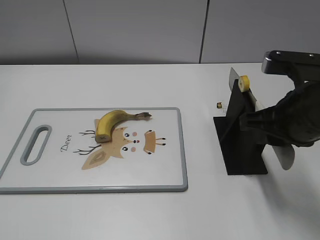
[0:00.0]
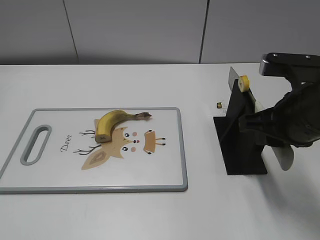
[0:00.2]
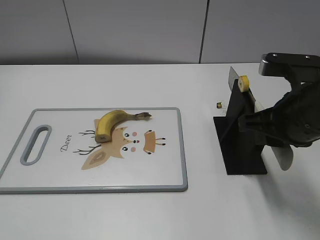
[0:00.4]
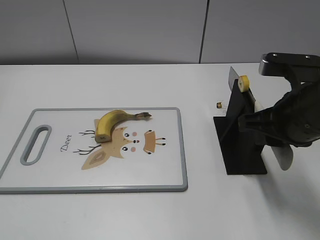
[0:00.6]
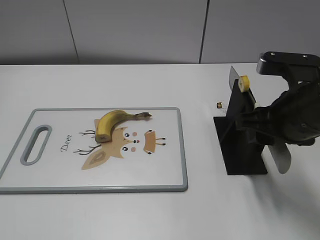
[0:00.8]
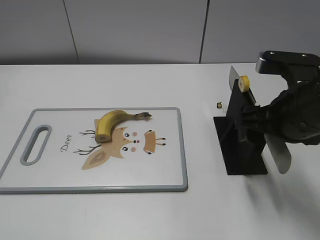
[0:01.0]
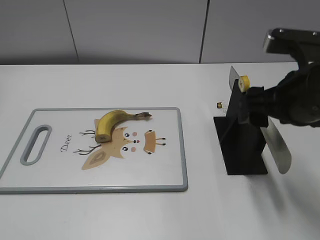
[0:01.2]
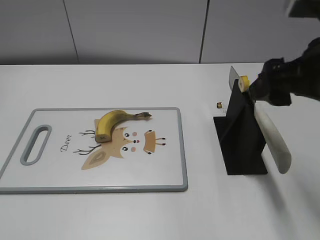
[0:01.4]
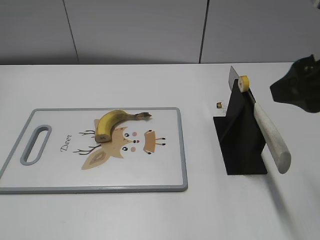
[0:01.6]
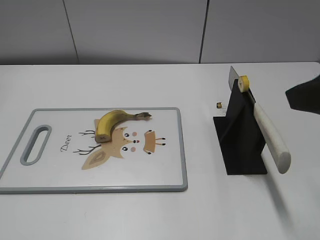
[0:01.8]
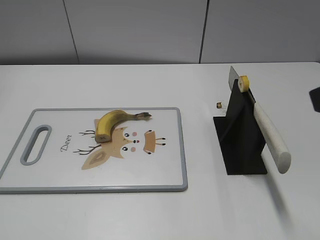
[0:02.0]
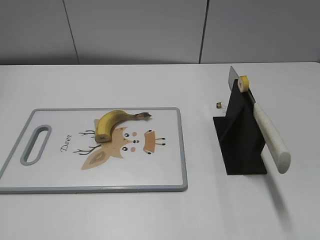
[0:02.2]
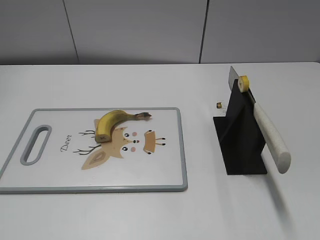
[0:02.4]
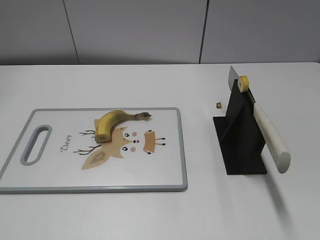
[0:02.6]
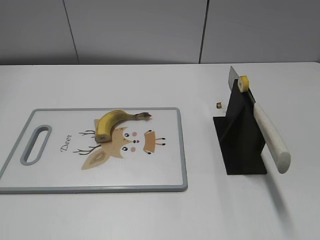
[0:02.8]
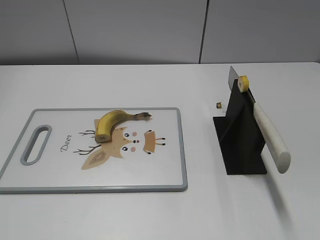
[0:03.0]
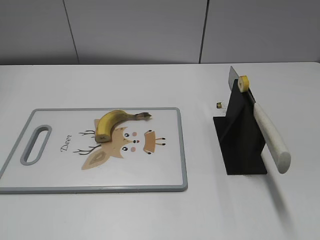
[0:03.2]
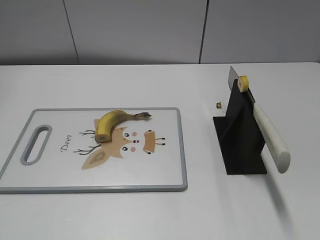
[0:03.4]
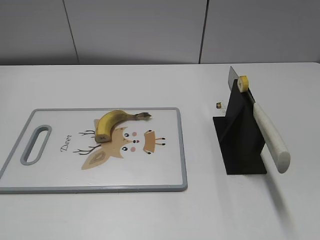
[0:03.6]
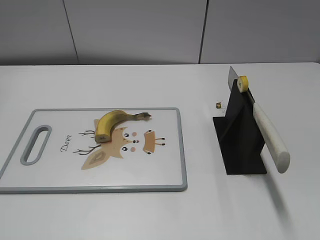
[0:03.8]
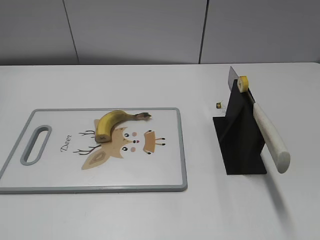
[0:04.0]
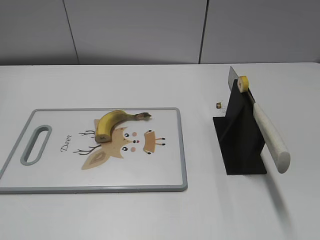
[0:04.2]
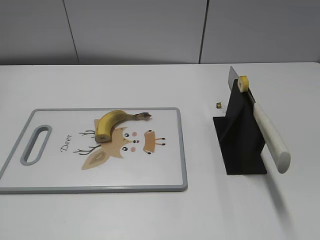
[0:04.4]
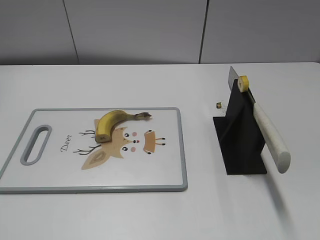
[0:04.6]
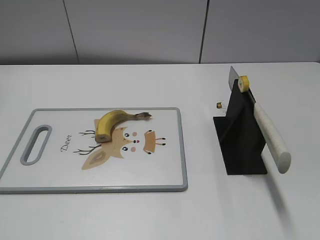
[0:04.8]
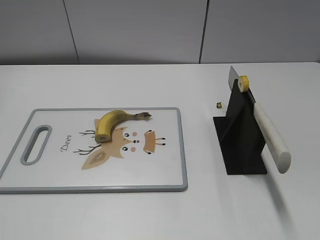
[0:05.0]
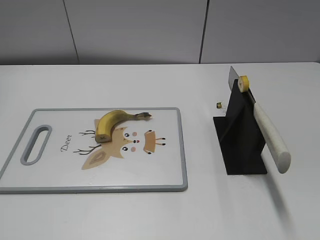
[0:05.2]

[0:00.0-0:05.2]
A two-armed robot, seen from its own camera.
Task of the whole recording: cut banana.
Step, 0:00.0 to 0:05.2: Place the knife on the storage rack with your right hand.
0:00.0 to 0:01.8: The right gripper is displaced upward and backward by approximately 15 cm, and opens up.
0:01.8 to 0:03.4: The right gripper travels backward, to the right and downward by about 20 cm.
